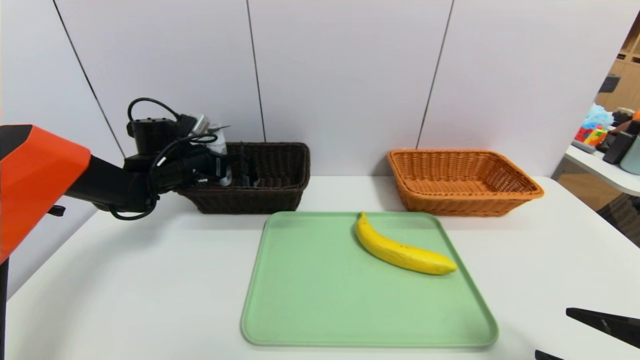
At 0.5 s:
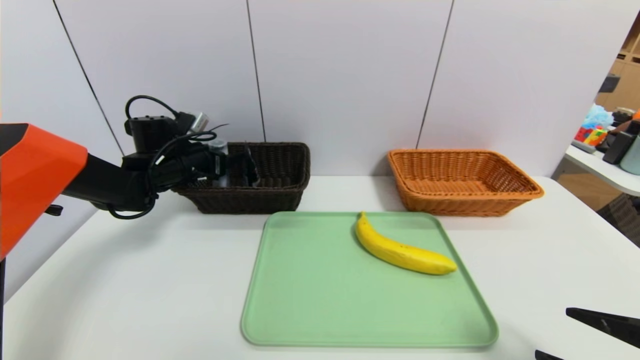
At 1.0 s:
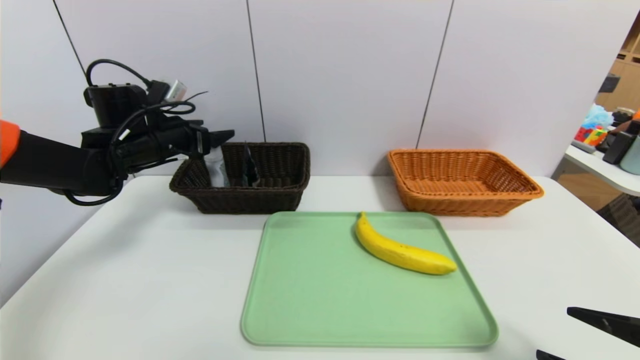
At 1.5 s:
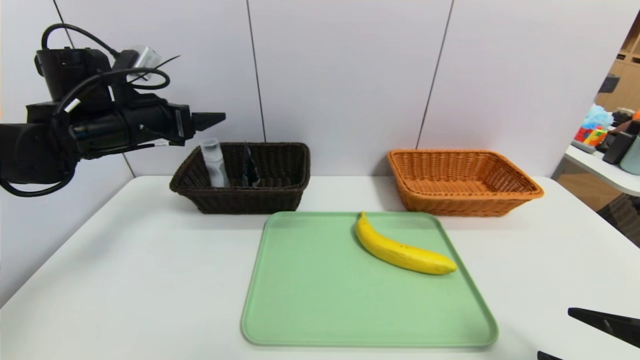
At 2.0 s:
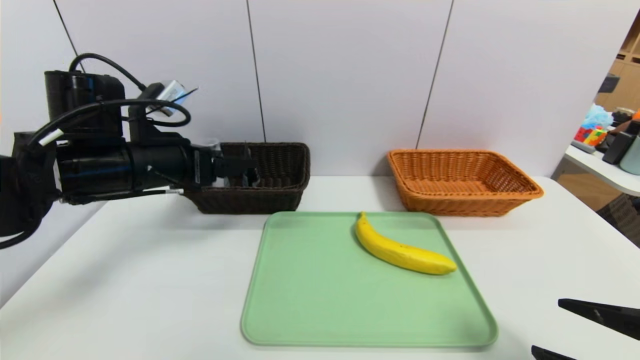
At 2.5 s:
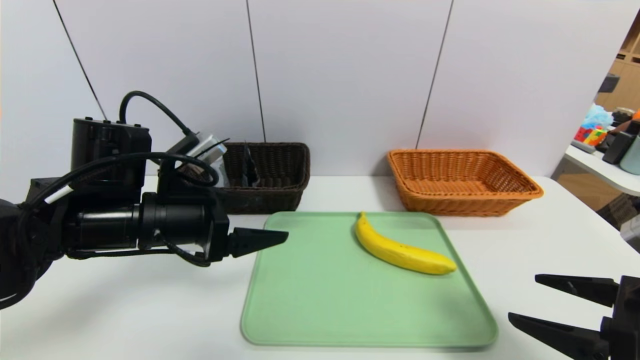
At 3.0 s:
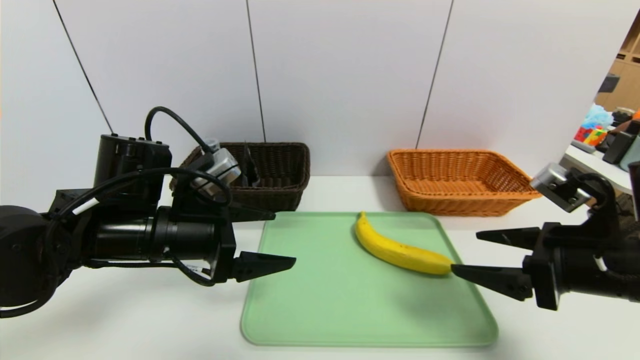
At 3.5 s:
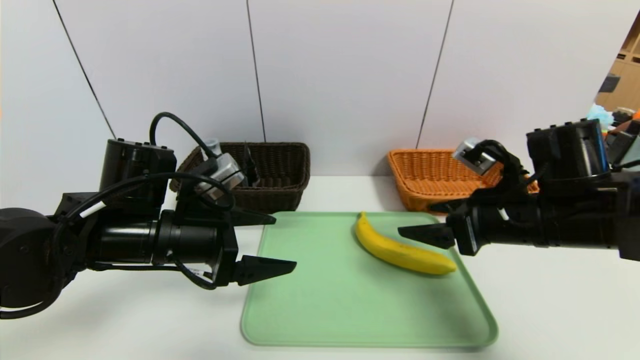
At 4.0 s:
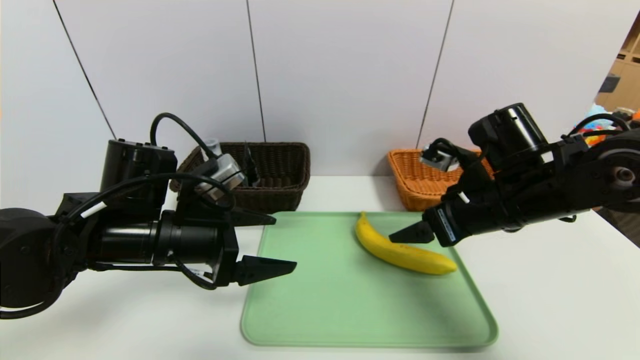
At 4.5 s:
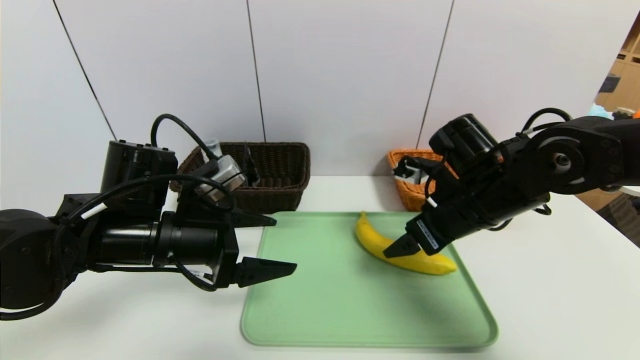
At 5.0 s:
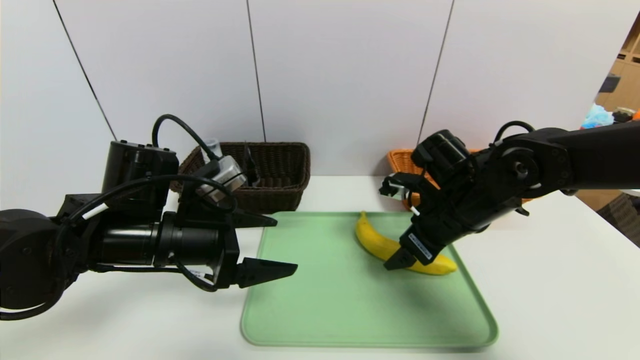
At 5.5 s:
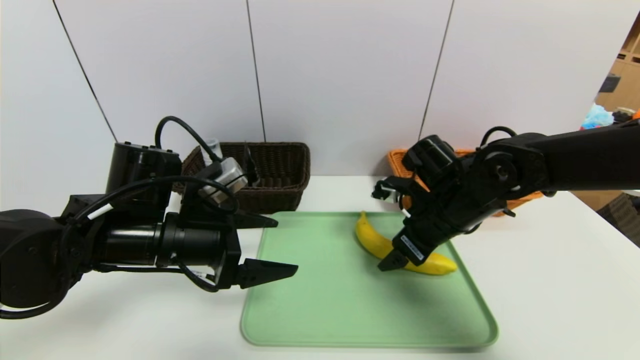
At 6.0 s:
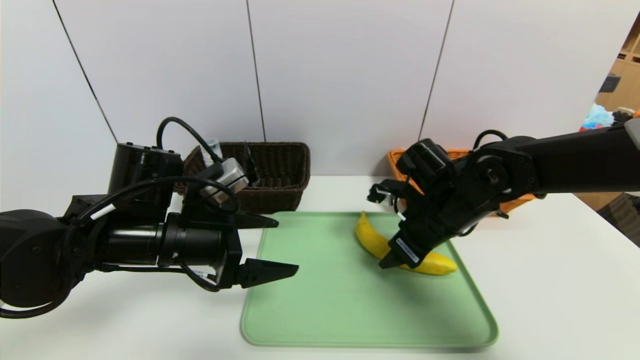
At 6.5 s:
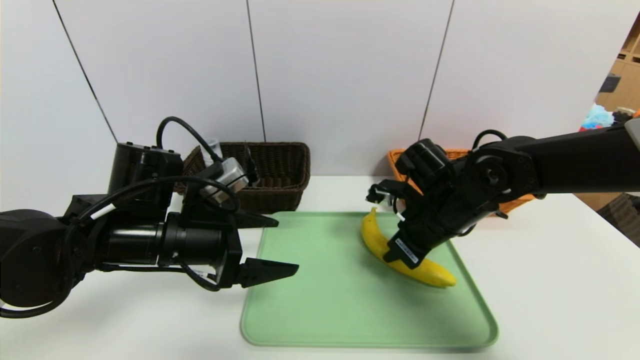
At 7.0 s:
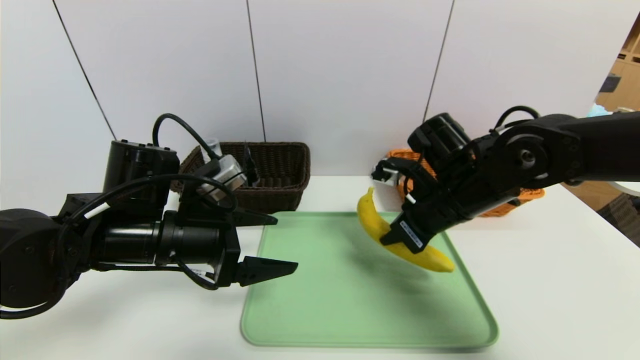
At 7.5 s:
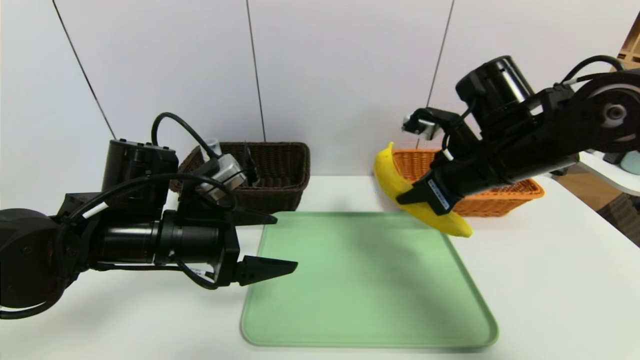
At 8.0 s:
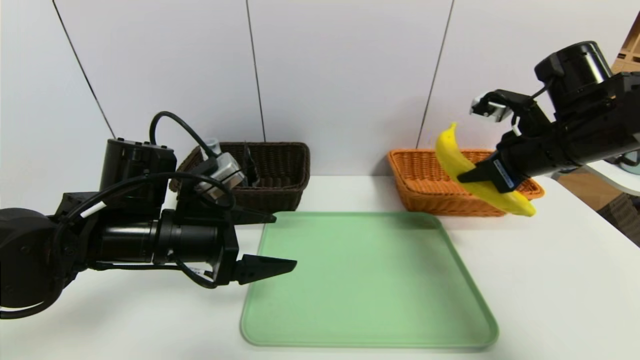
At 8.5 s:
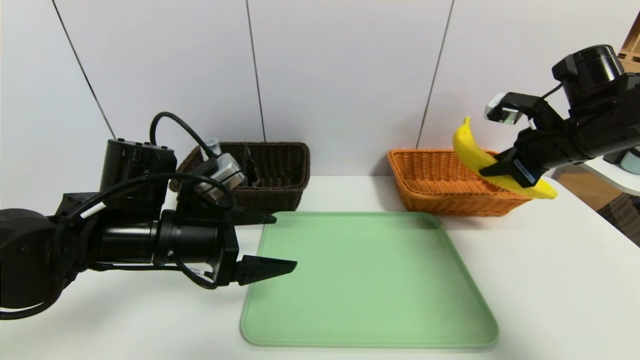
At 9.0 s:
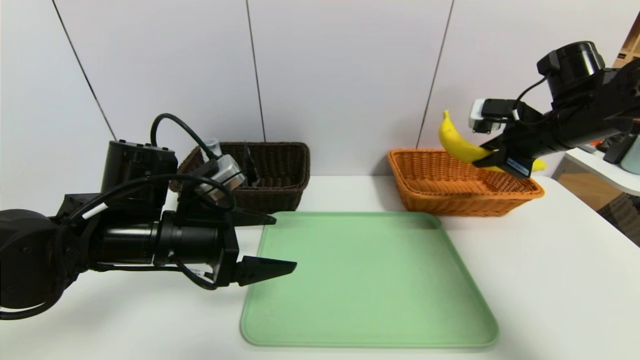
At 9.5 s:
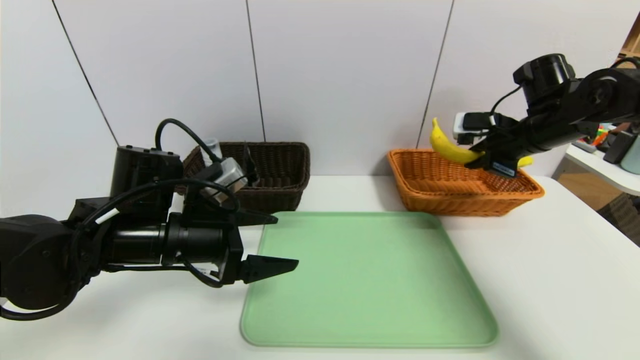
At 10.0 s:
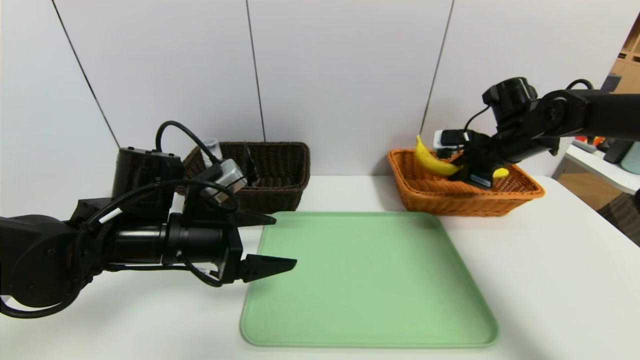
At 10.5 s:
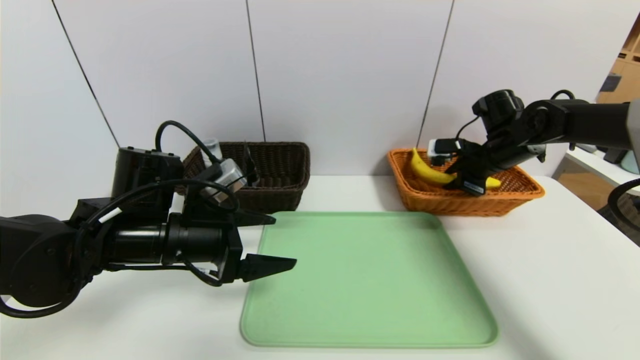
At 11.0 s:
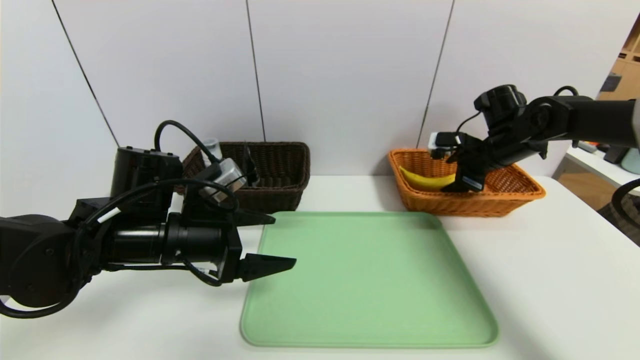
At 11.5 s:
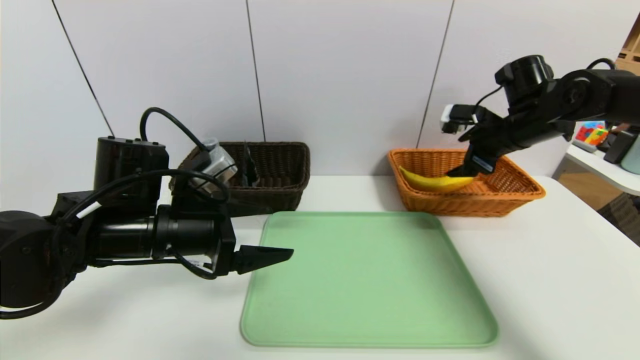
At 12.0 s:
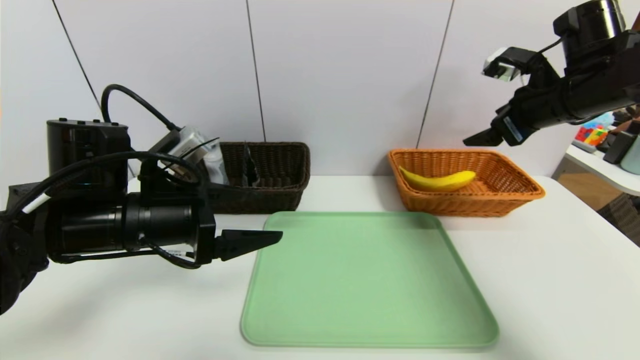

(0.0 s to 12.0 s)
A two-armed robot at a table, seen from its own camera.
Task of the whole recording: place the food in the right basket with the right gripper, and place the non food items in the left basket with the left gripper.
Step, 1.0 s - 10.5 s: Grasp the banana and put it in the right basket.
0.0 s - 2.0 s: The left gripper travels backward and upward by approximately 20 cm, and opens its fingers.
2.0 s - 4.0 s: The right gripper shifts approximately 20 cm forward and to the left. Meanwhile the left gripper shifts approximately 5 cm downward.
4.0 s - 6.0 s: The right gripper heads downward, covering roughly 5 cm, and closes.
6.0 s - 8.0 s: The right gripper goes some 15 cm to the right and upward, and closes.
8.0 s - 10.0 s: The right gripper is displaced forward and downward by some 15 cm.
10.0 s - 12.0 s: The right gripper heads upward and backward, covering some 10 cm, and opens up.

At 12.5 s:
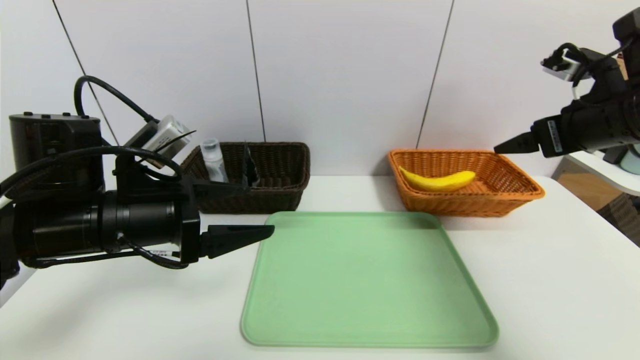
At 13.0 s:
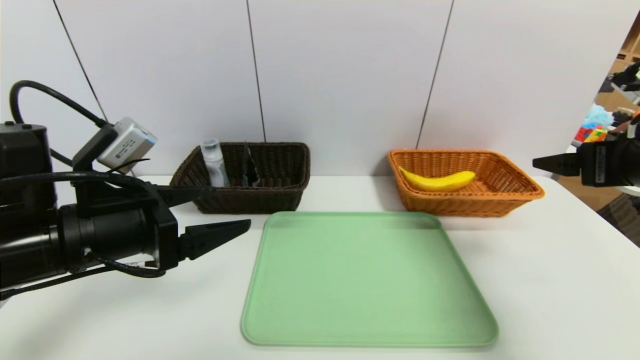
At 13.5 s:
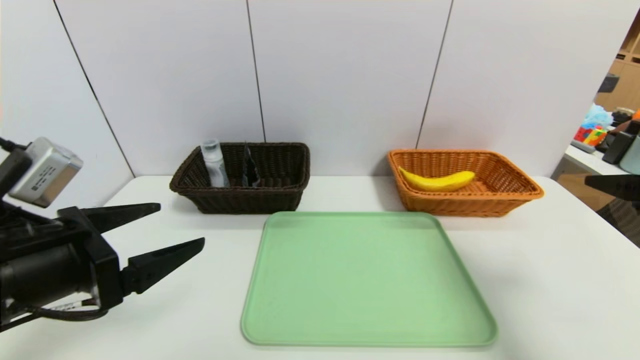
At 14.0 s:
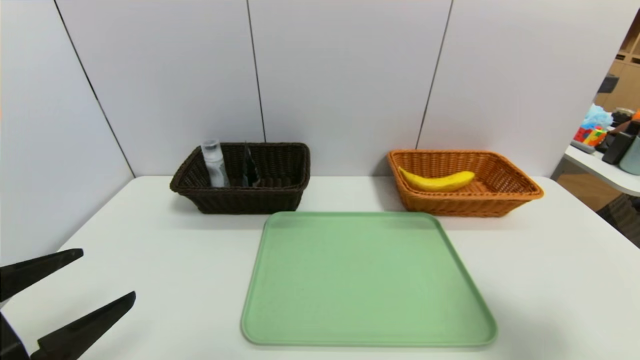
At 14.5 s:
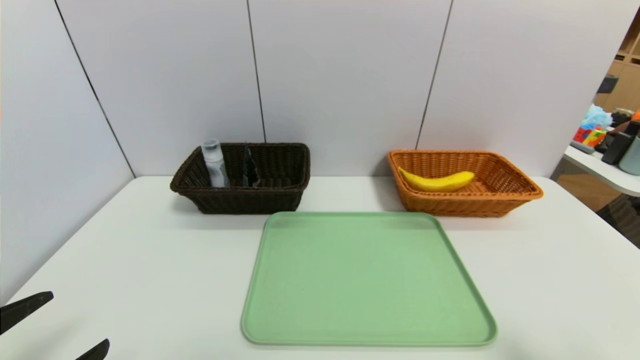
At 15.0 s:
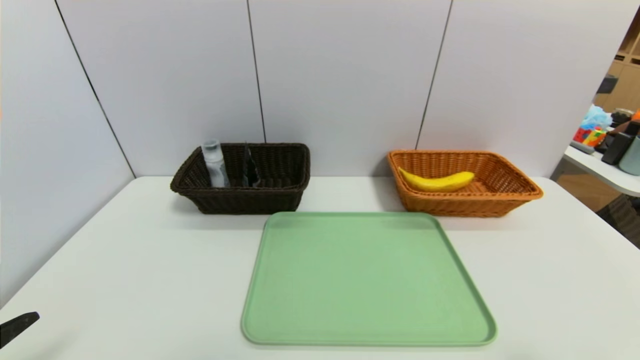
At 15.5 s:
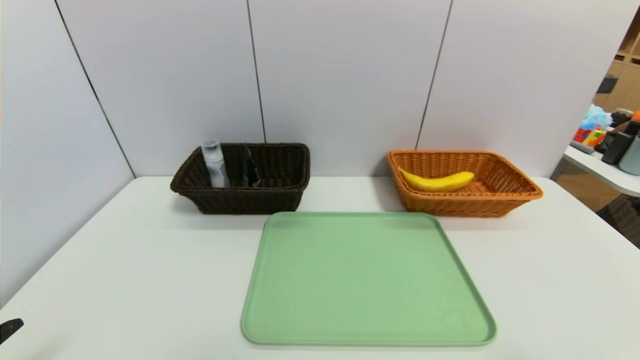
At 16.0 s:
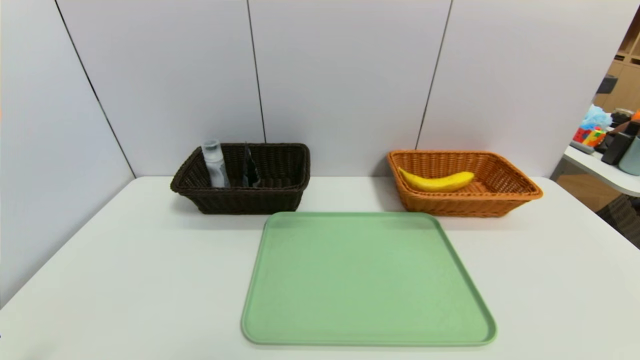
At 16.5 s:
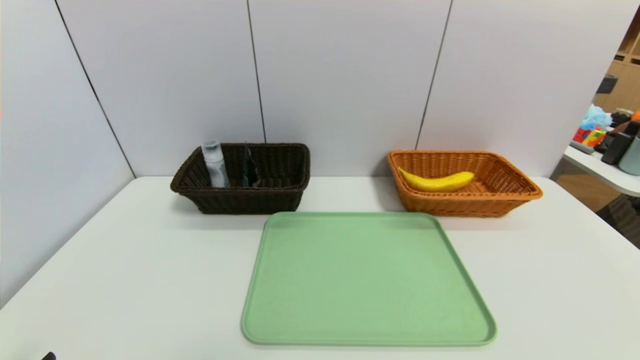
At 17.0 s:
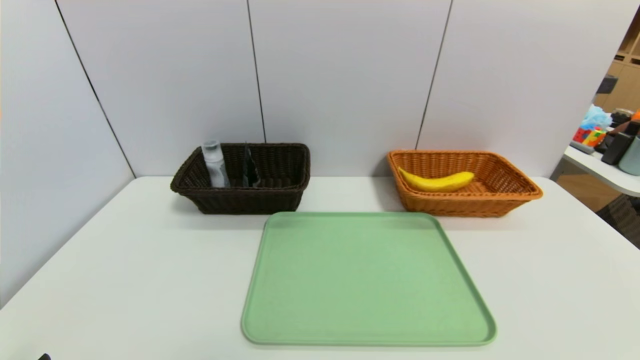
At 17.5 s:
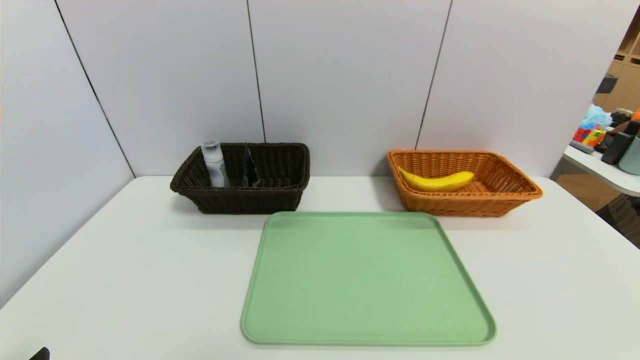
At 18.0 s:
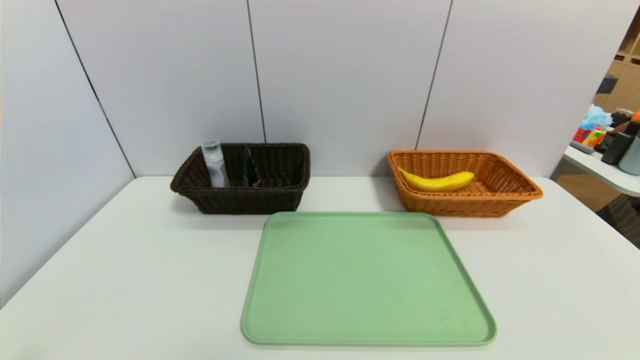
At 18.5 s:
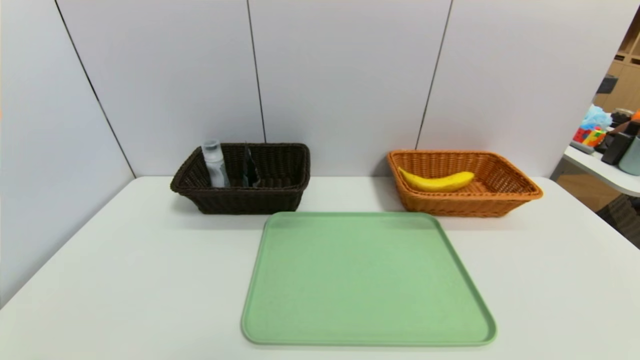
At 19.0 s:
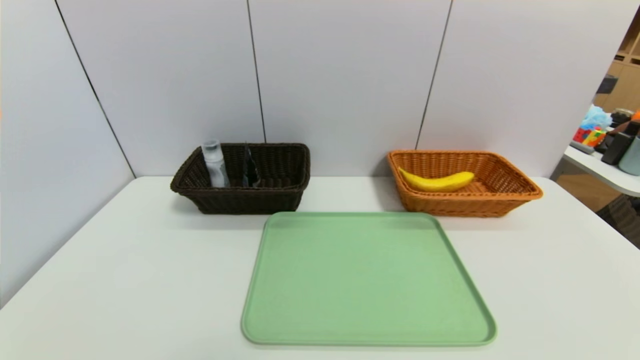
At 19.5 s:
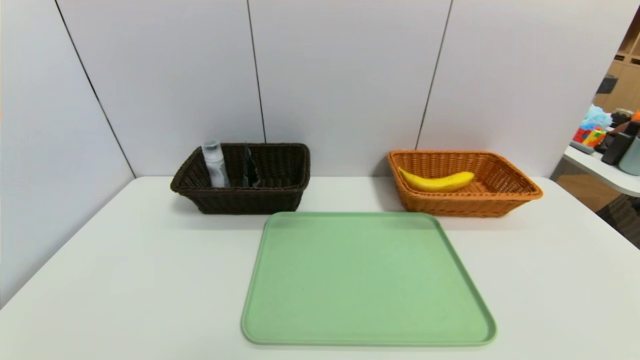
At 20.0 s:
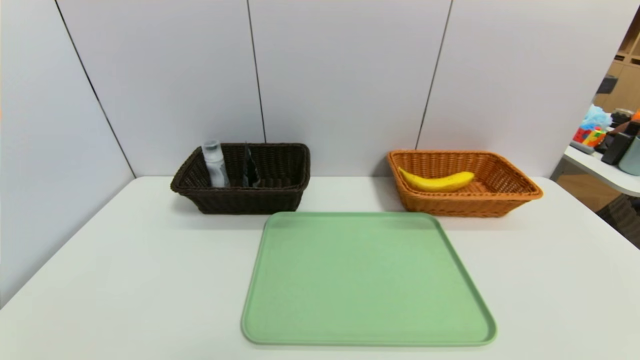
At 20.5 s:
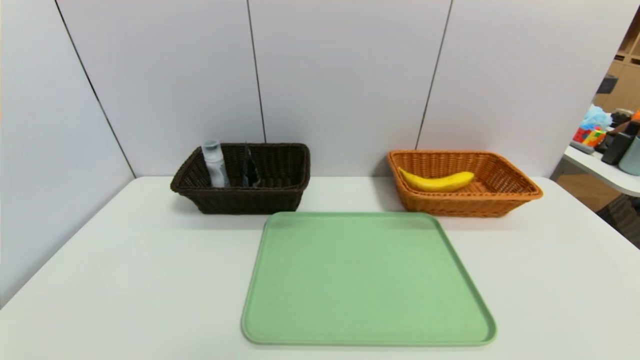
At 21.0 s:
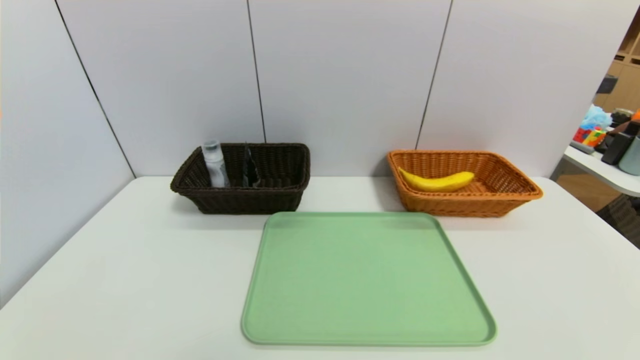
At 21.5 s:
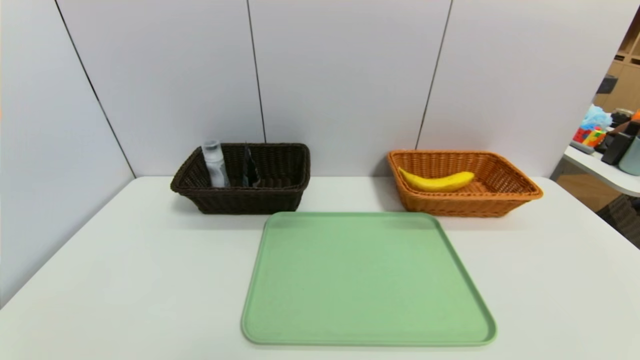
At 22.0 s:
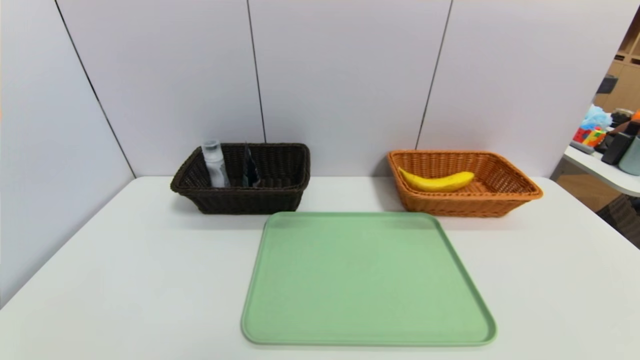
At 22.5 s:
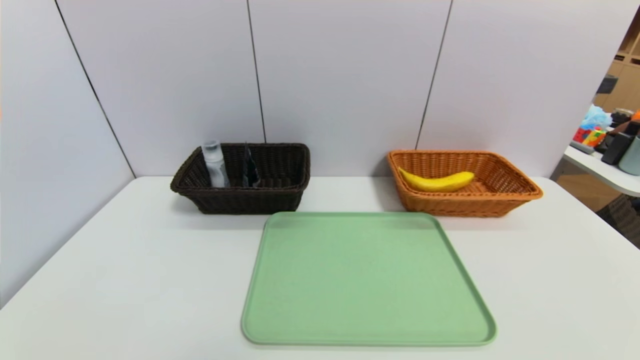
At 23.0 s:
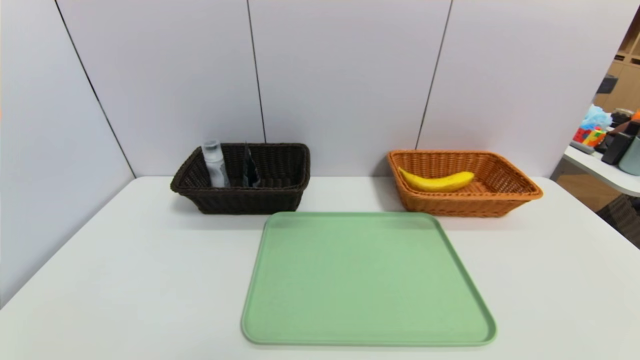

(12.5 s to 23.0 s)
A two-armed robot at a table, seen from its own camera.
Task of the whole recording: place the food in the right basket with the right gripper, and place the non food items in the left basket with the left gripper.
12.5 s - 14.5 s: The right gripper goes some 25 cm backward, while the left gripper goes approximately 20 cm backward and to the left.
